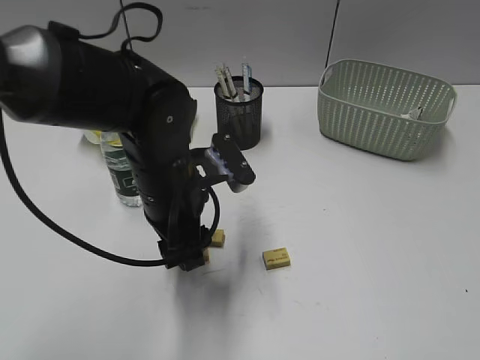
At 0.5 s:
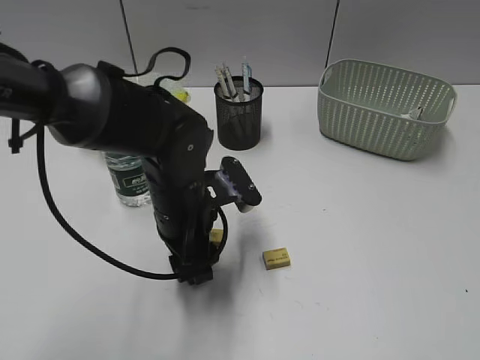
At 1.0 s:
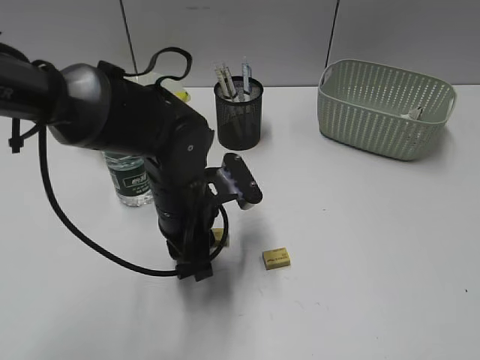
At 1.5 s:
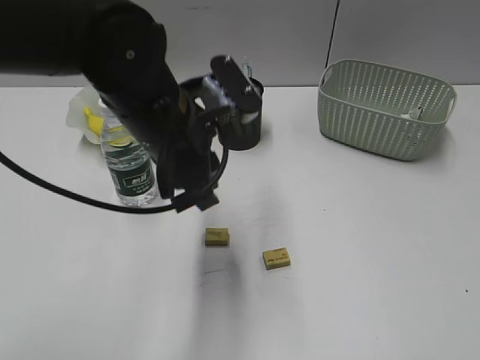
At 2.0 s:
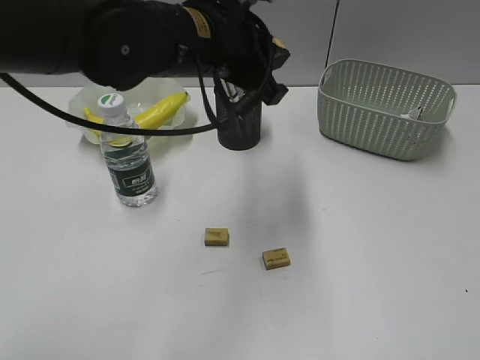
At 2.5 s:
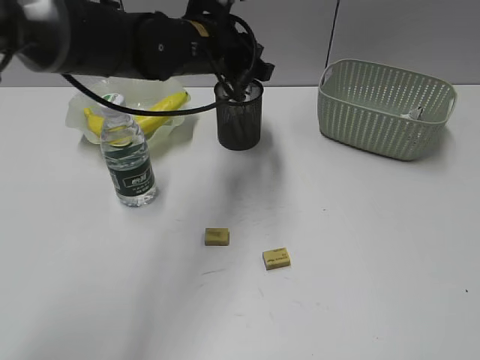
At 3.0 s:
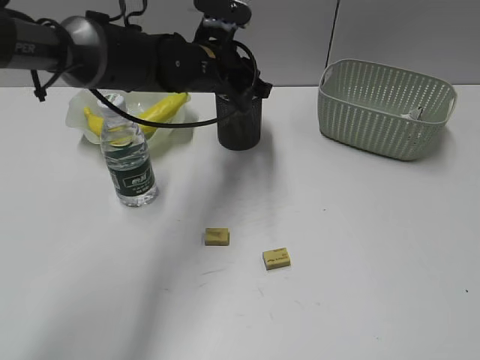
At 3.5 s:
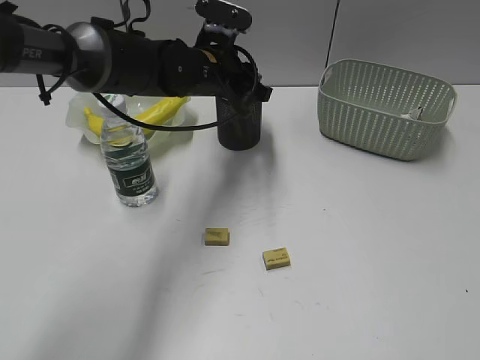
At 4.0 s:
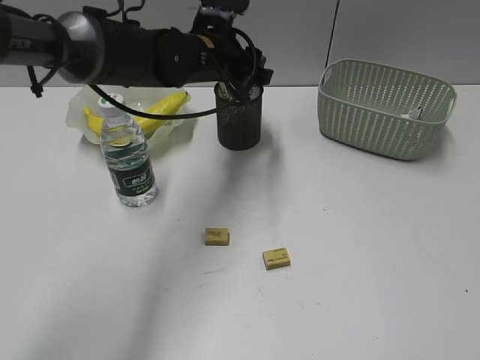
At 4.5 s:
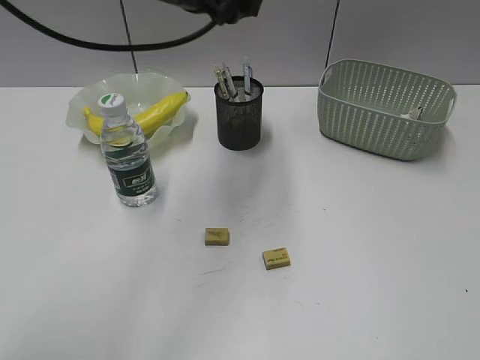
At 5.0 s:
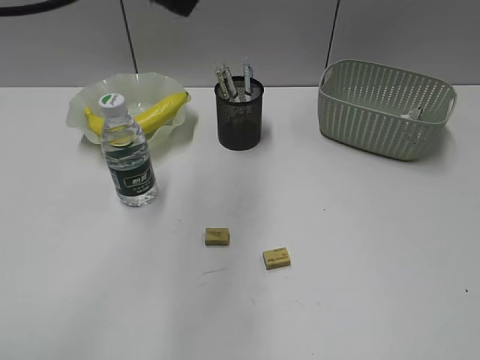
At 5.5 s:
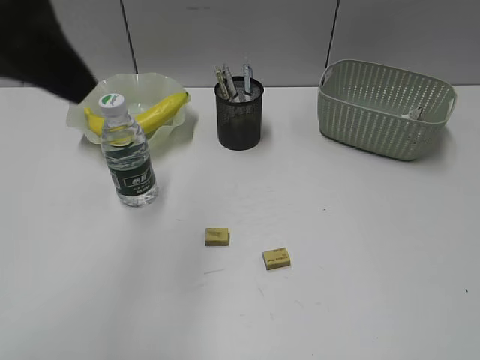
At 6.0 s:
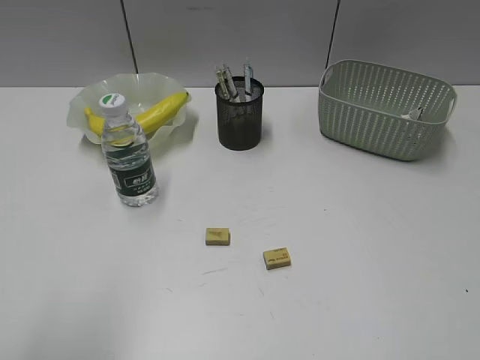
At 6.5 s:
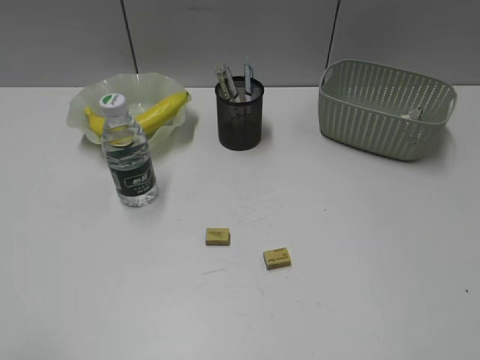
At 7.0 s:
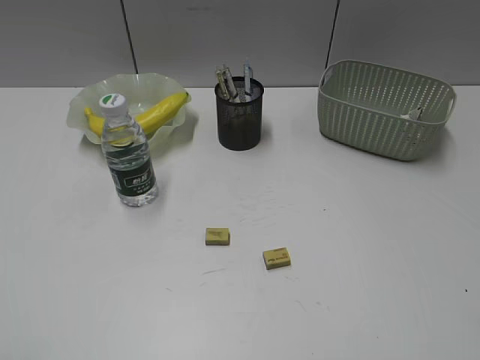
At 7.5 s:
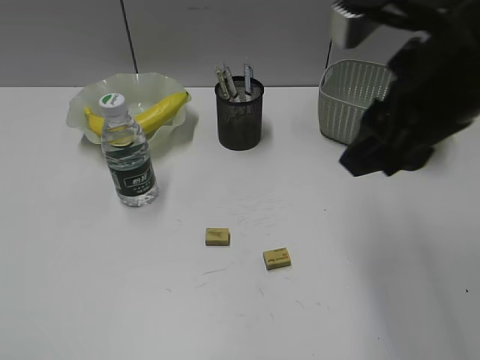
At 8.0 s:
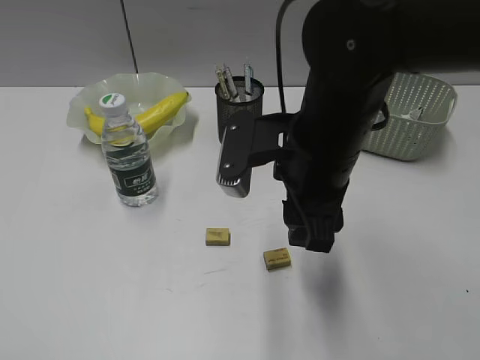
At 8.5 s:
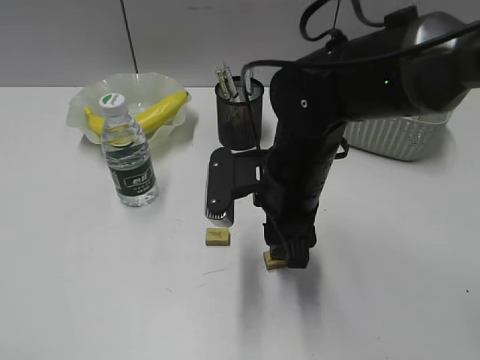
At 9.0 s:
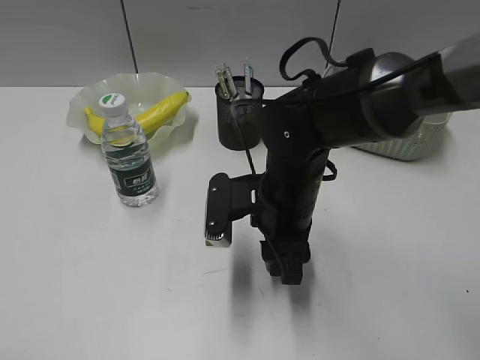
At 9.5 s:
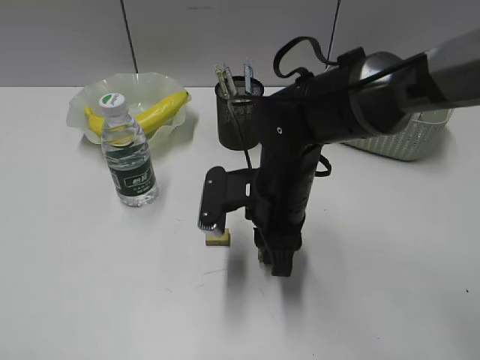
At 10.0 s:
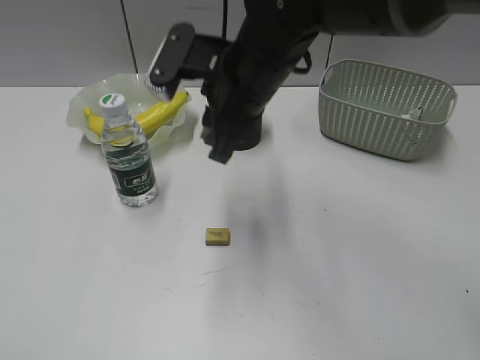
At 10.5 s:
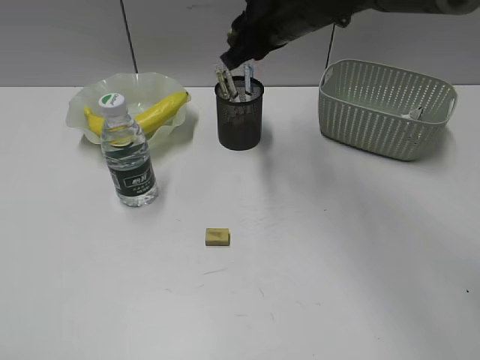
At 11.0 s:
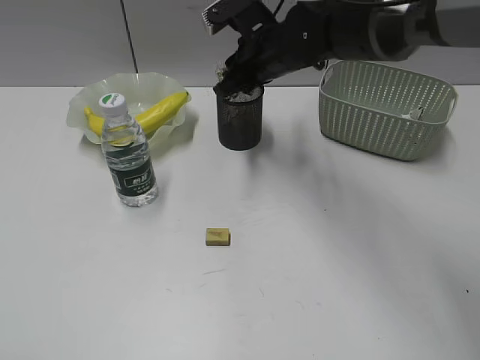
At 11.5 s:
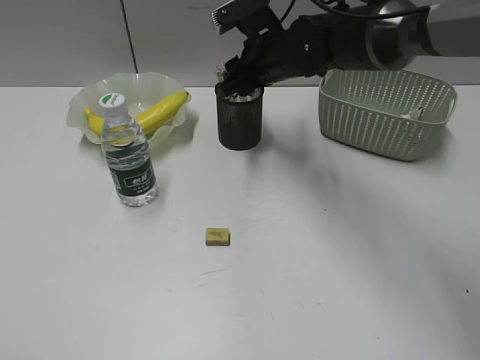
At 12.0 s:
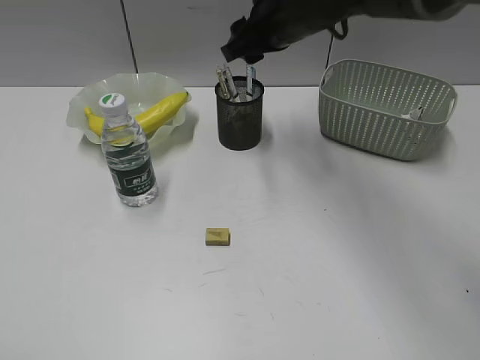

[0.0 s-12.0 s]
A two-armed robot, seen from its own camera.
Step, 1.5 to 4.0 s: Place the eraser in pen holder with left gripper.
Step, 4.5 to 9.0 s: Grasp the eraser with right gripper.
Step, 9.5 to 11.5 s: Place the eraser in pen holder with right gripper.
0.0 to 2.0 s: The left gripper travels upward by approximately 10 cm, and closes up.
2.0 to 4.0 s: The left gripper is displaced forward and downward by roughly 15 cm, and opens its fingers.
4.0 to 6.0 s: The left gripper shifts roughly 40 cm backward and to the left.
6.0 to 8.0 s: The left gripper goes about 15 cm backward and to the left. Meanwhile the right gripper heads forward and to the left, covering roughly 35 cm.
8.0 to 10.0 s: The right gripper goes some 10 cm forward and to the left, reaches some 10 cm downward, then returns, and closes up.
10.0 to 12.0 s: The right gripper travels forward by about 10 cm, and opens.

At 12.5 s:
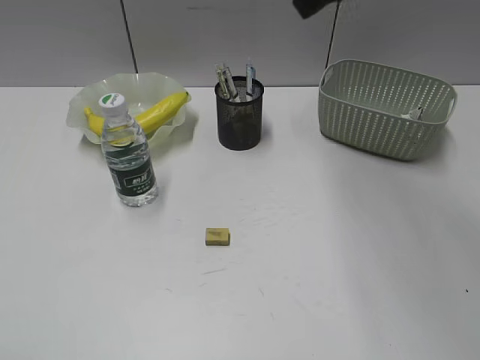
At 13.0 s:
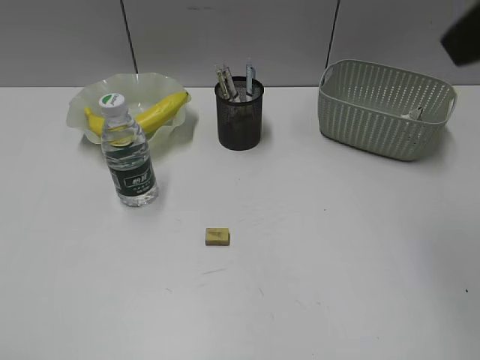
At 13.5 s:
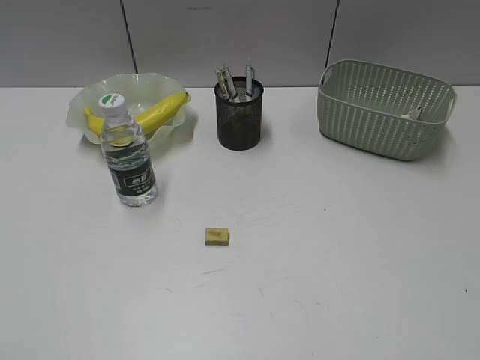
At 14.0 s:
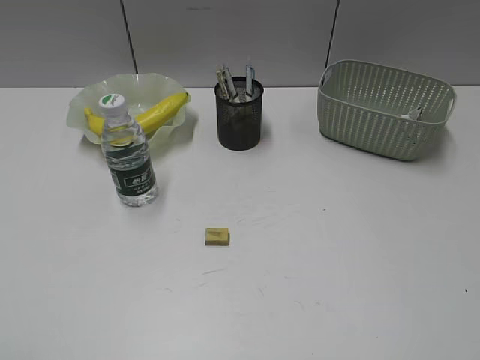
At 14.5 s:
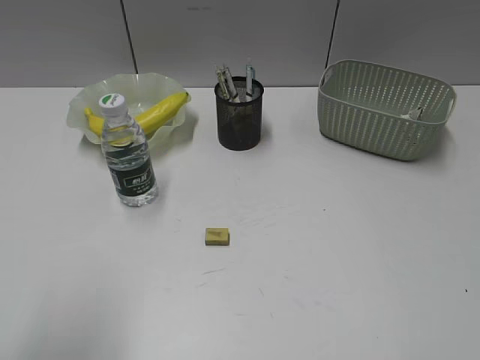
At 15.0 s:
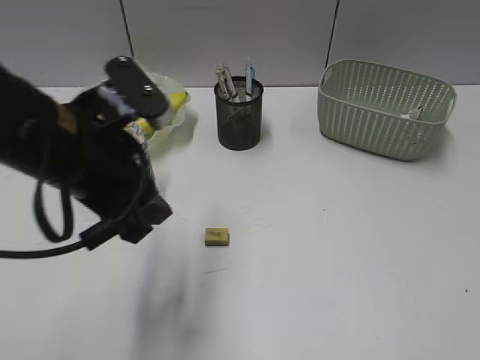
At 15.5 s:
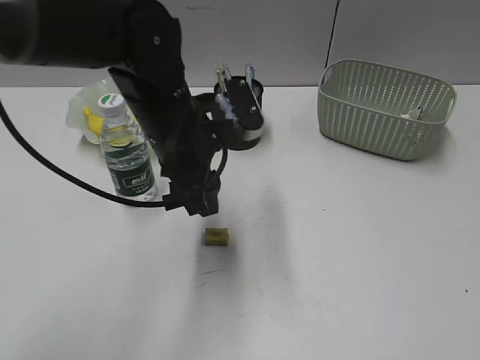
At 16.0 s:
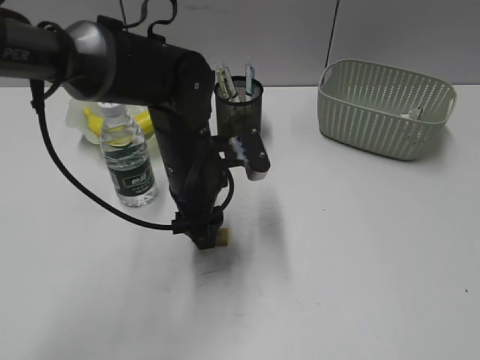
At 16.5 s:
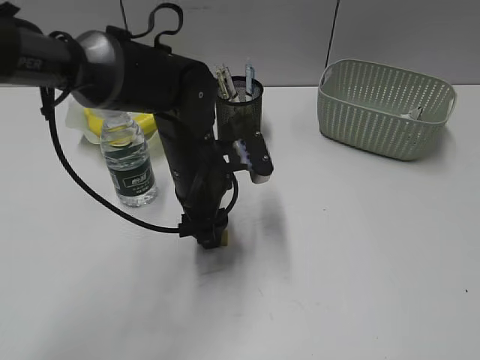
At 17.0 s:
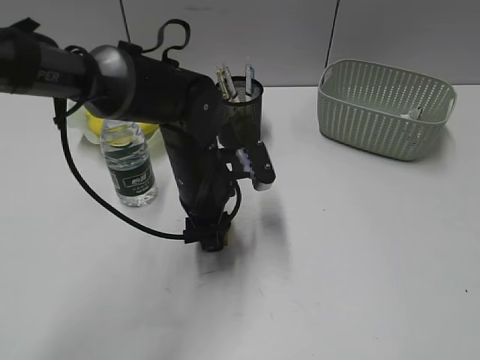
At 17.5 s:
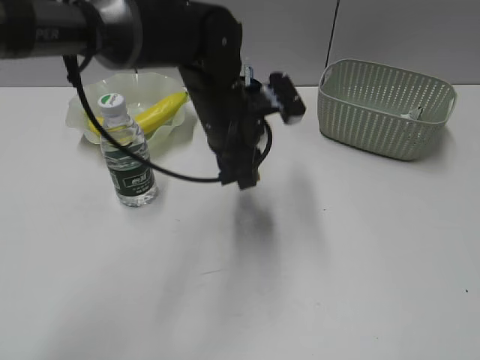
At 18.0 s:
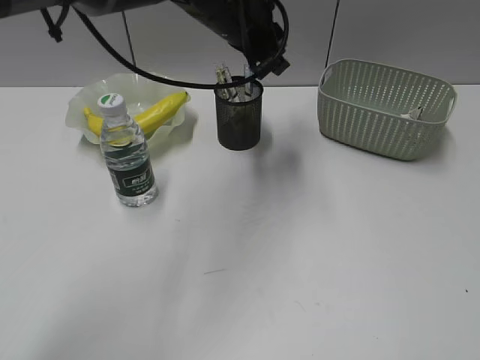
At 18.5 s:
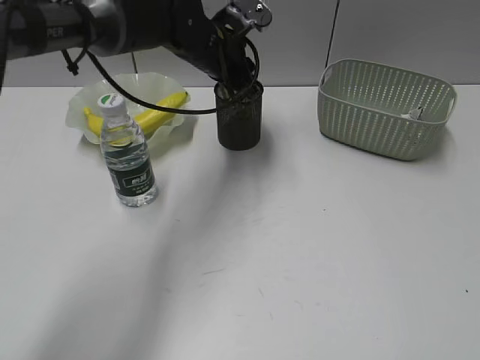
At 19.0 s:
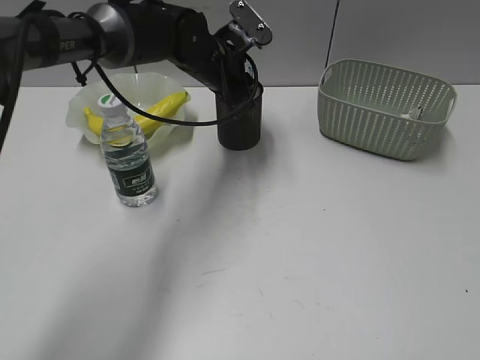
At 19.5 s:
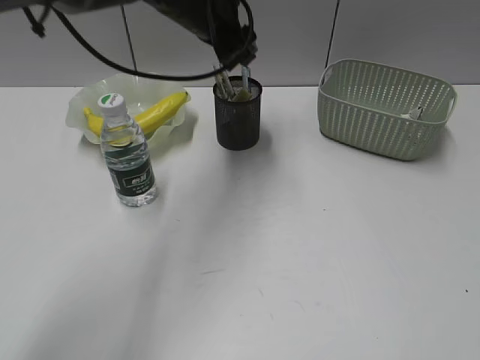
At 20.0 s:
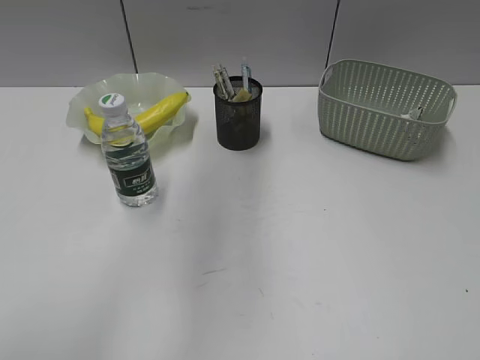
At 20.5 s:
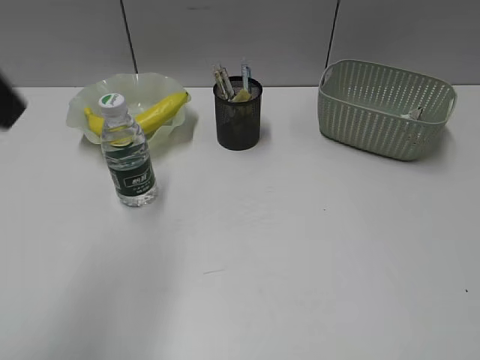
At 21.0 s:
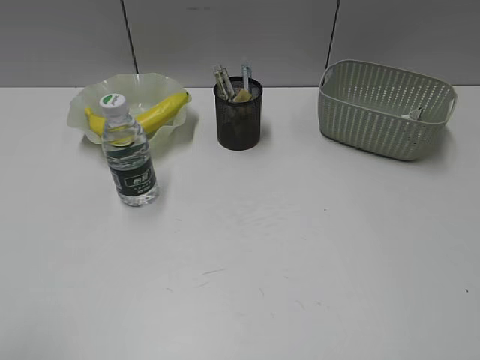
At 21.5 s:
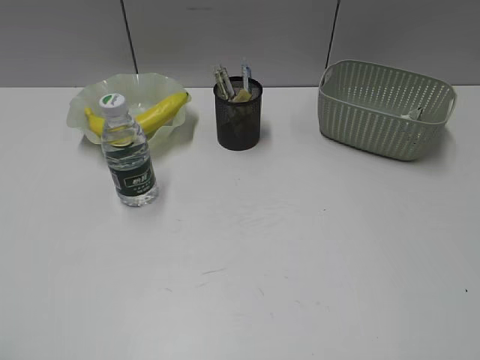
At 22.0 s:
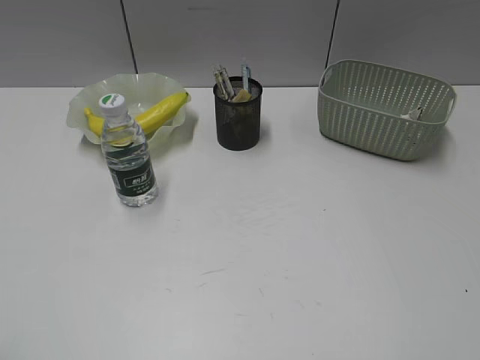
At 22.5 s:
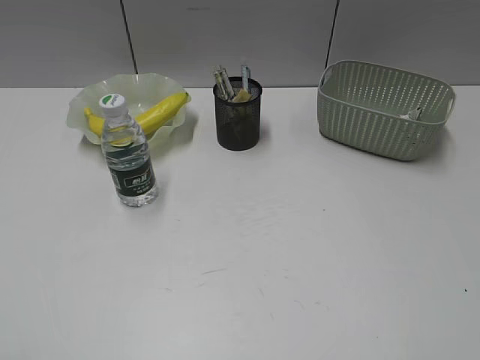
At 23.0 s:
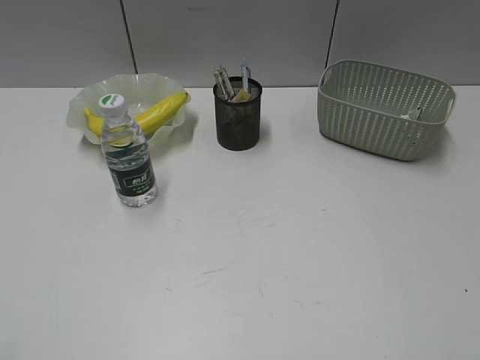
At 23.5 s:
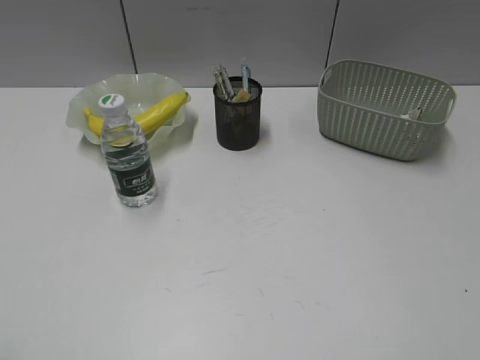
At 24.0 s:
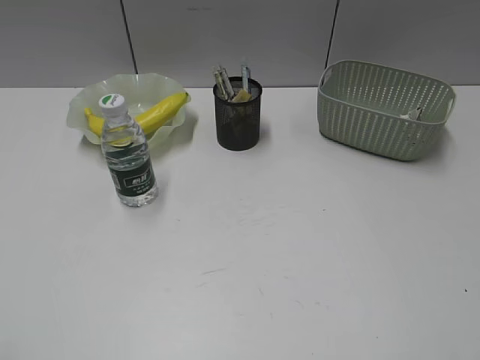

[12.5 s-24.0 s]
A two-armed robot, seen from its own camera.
Step, 12.5 to 17.0 s: Grasp the eraser with left gripper.
Step, 17.5 to 19.0 s: Place the eraser in pen holder with left gripper.
12.5 to 14.5 s: The left gripper shifts approximately 10 cm forward and to the right.
14.5 to 16.5 s: The left gripper moves forward, to the right and downward, approximately 35 cm.
16.5 to 18.5 s: The left gripper travels forward and upward by roughly 15 cm, and closes up.
18.5 to 20.0 s: The left gripper heads upward and backward, covering some 25 cm, and opens up.
20.0 to 22.0 s: The left gripper travels backward and to the left by roughly 40 cm.

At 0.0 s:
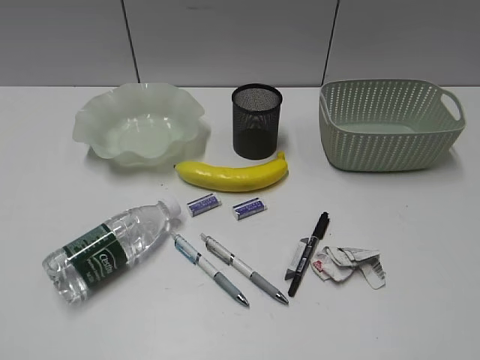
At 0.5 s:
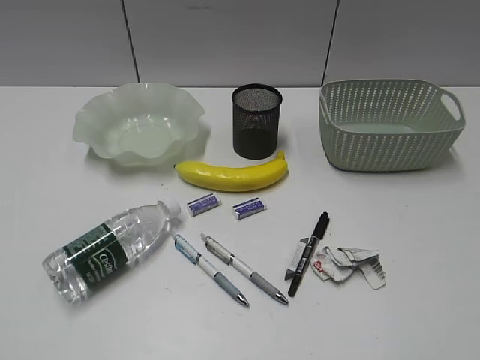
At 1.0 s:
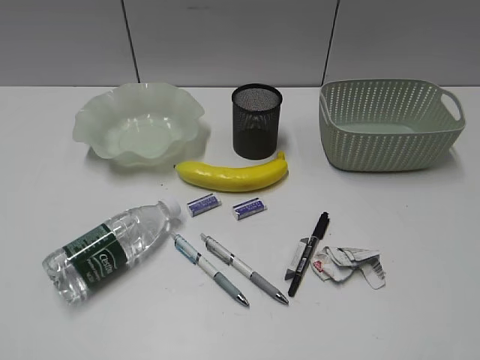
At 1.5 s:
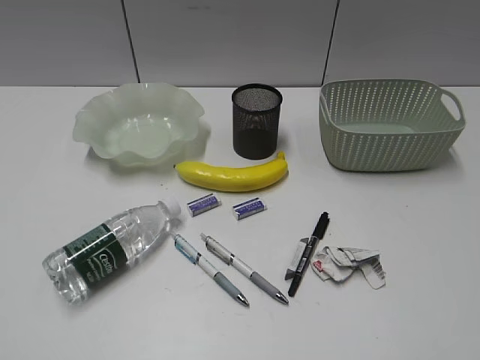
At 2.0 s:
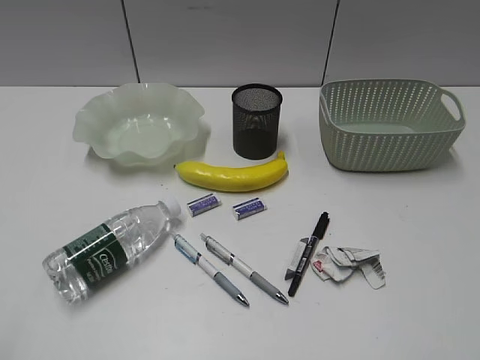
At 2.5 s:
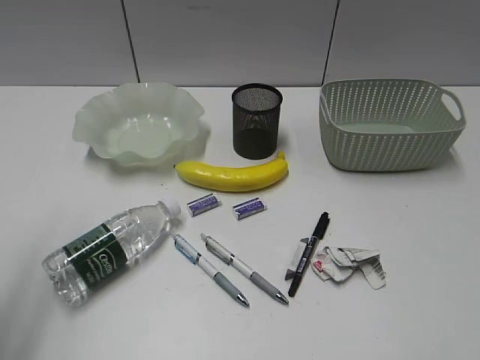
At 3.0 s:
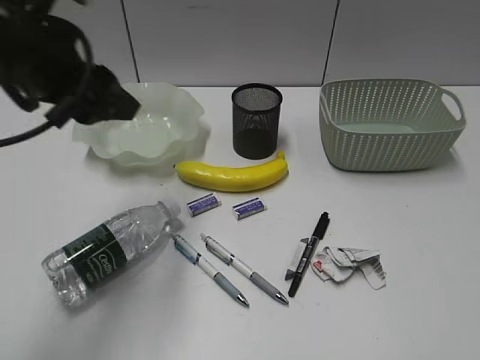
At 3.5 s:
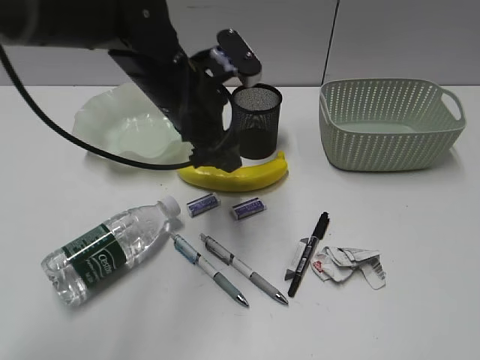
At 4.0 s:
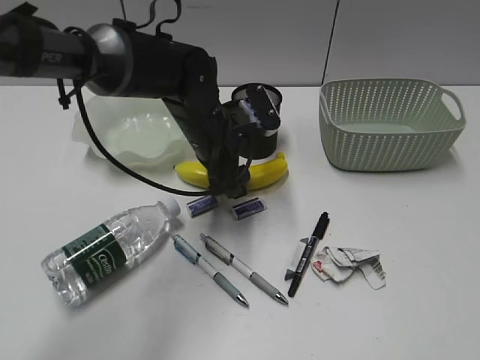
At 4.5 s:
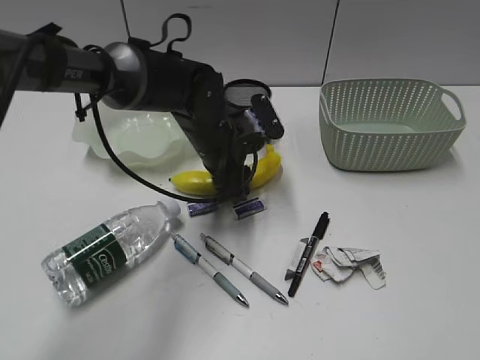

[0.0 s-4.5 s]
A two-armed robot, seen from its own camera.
2.0 to 4.5 s: The left gripper travels forward, to the right and downward by about 50 cm, and opens, then closes once more.
